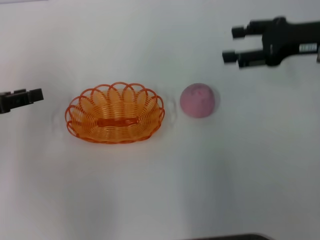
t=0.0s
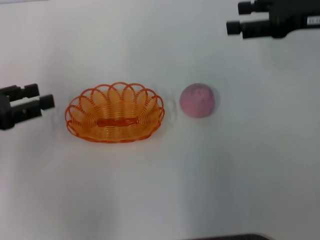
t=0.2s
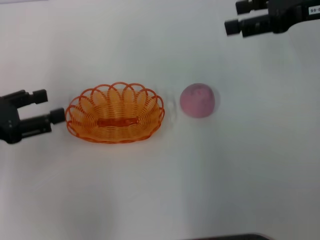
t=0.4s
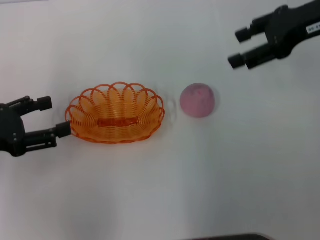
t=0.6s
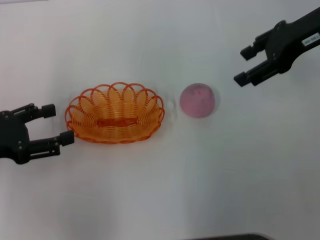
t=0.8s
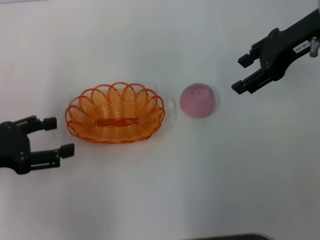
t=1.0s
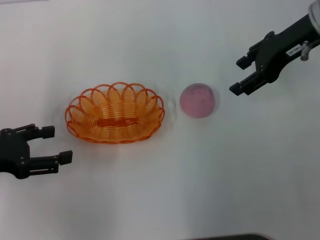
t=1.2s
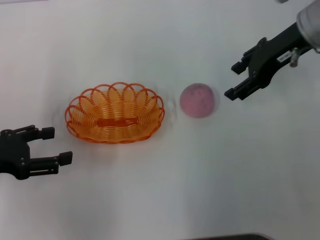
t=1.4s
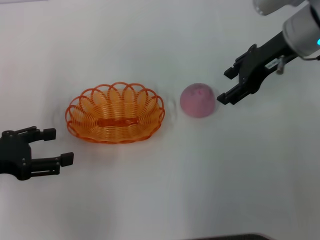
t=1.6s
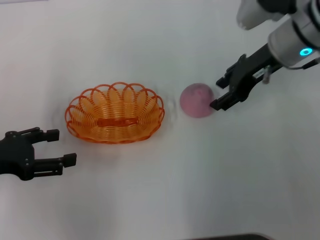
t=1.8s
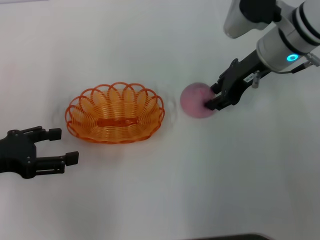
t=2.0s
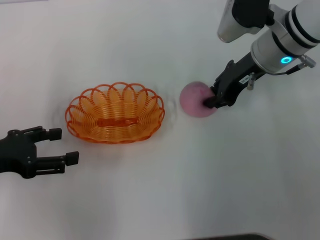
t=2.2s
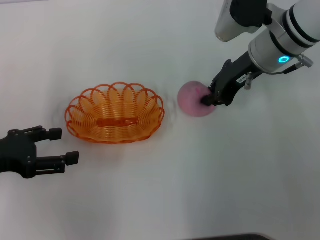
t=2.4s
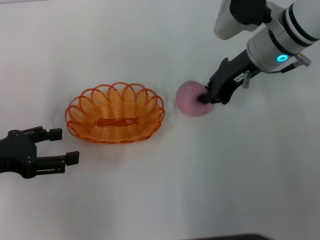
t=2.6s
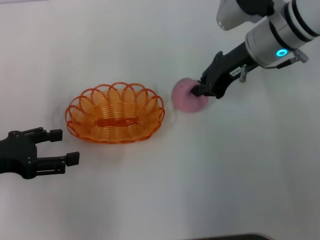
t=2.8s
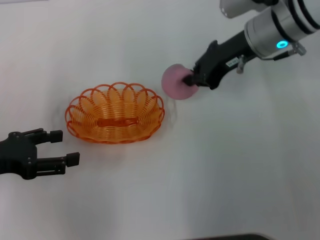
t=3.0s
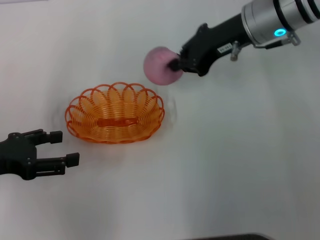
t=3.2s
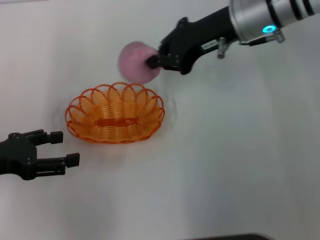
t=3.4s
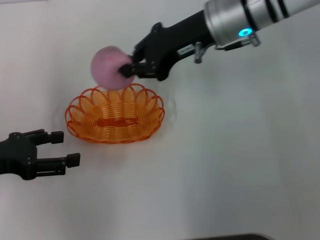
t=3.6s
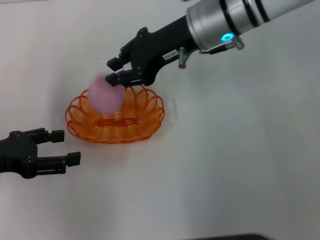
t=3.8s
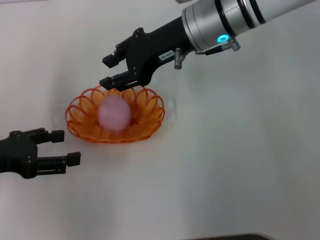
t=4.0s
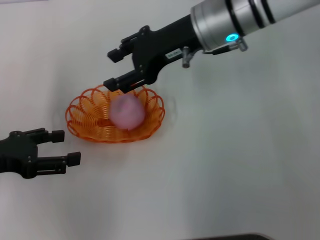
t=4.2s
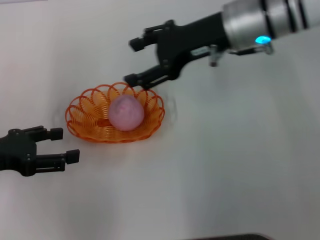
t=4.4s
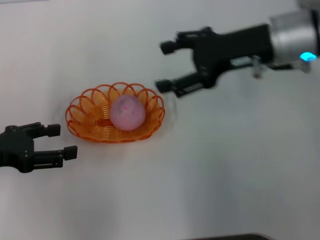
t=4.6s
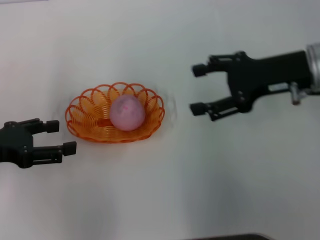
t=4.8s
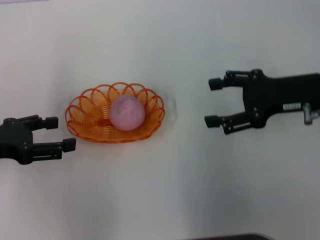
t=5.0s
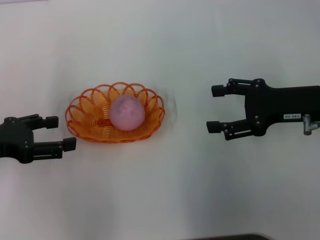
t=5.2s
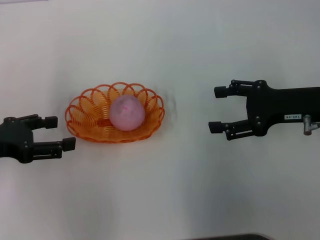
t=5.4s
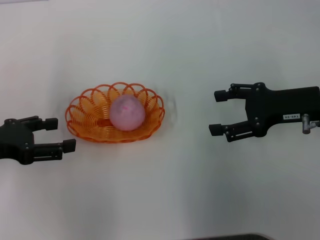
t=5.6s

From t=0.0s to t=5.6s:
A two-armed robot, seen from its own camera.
Step, from t=0.4s to t=3.0s: Pick up the peach with the right gripper.
Step, from t=3.2s to t=4.4s: Place the peach into the basket with the right gripper.
From t=0.0s to t=1.4s: The left gripper shifts by approximately 5 cm. Meanwhile the right gripper is displaced to the left by roughly 5 cm.
From t=1.4s to t=2.8s: The right gripper changes place by some 5 cm, and closes its fingers.
From t=2.8s to t=4.2s: The right gripper goes approximately 5 cm to the left, and opens up.
From t=4.2s to t=5.6s: The right gripper shifts approximately 20 cm to the right, backward and downward, and opens up.
